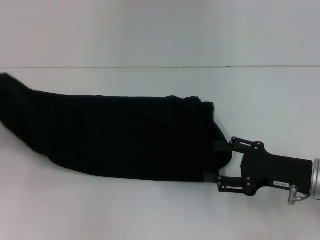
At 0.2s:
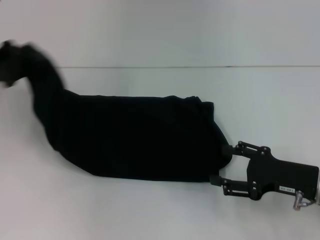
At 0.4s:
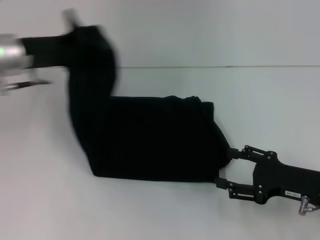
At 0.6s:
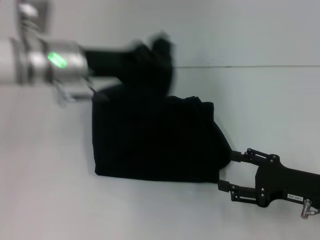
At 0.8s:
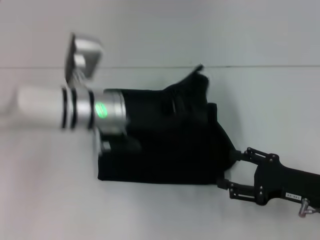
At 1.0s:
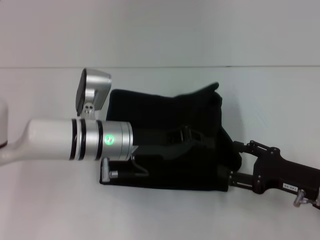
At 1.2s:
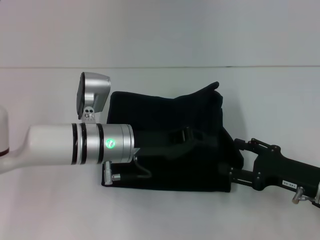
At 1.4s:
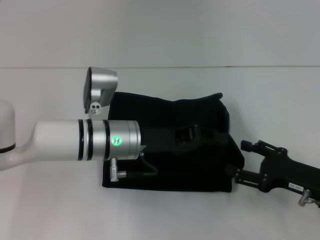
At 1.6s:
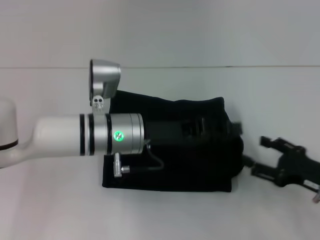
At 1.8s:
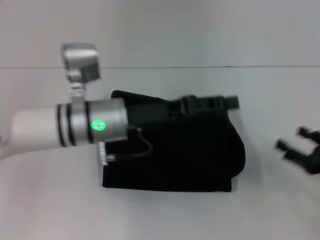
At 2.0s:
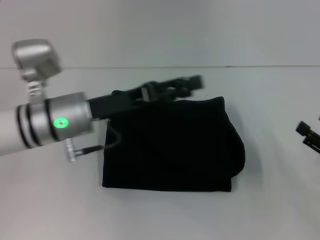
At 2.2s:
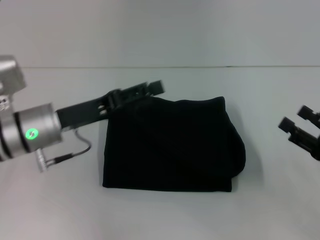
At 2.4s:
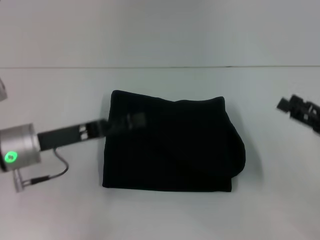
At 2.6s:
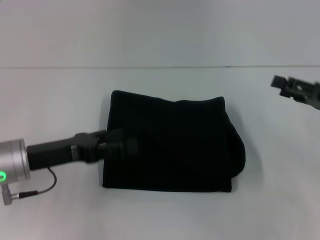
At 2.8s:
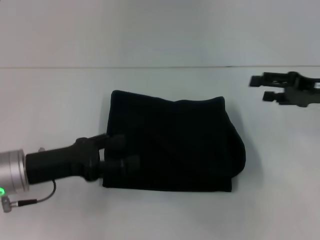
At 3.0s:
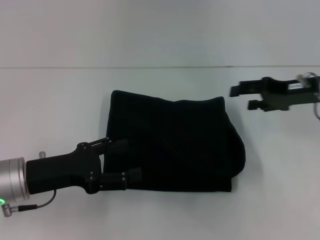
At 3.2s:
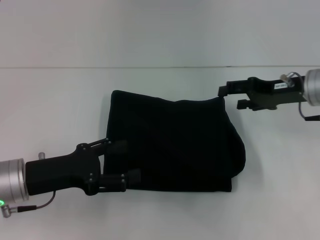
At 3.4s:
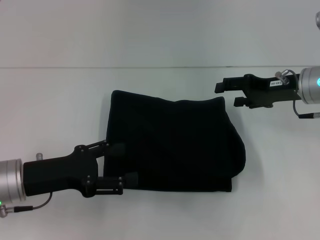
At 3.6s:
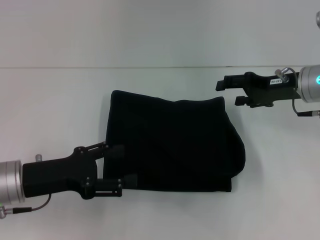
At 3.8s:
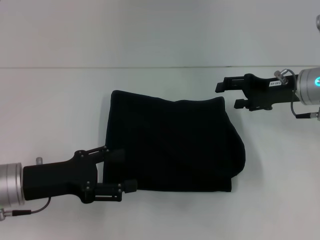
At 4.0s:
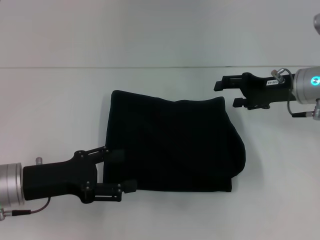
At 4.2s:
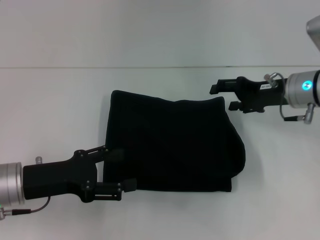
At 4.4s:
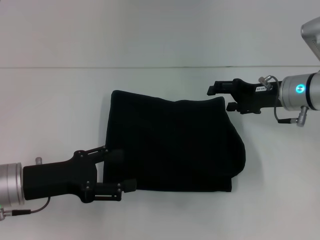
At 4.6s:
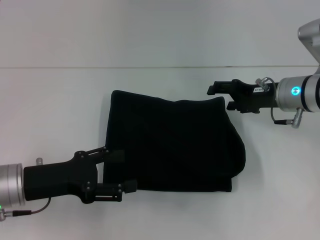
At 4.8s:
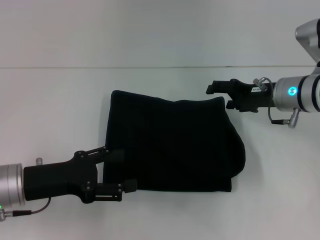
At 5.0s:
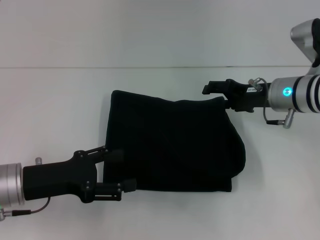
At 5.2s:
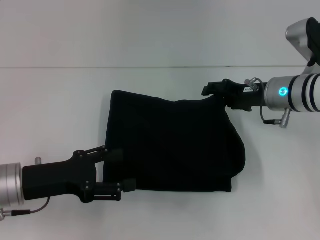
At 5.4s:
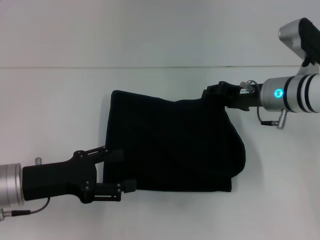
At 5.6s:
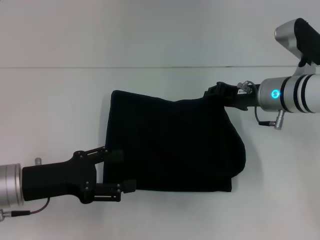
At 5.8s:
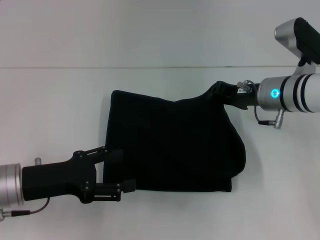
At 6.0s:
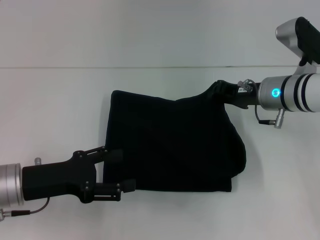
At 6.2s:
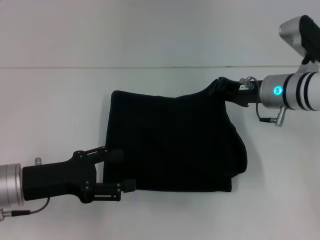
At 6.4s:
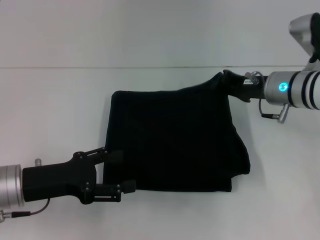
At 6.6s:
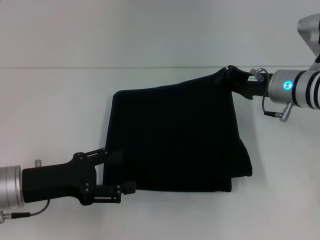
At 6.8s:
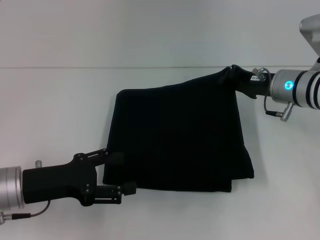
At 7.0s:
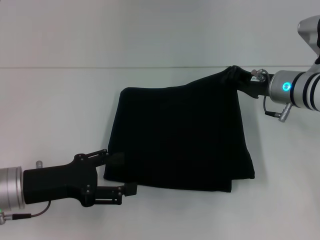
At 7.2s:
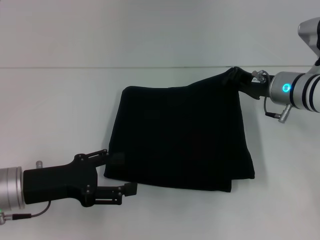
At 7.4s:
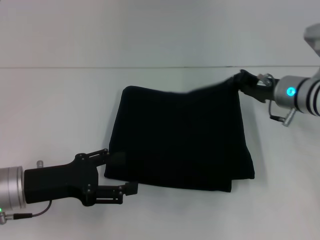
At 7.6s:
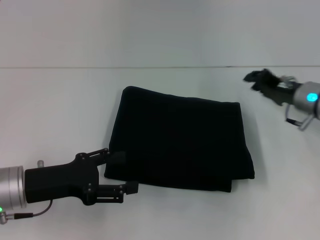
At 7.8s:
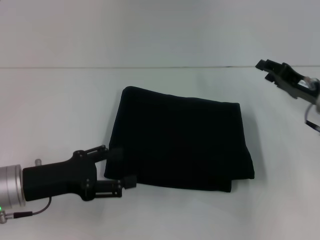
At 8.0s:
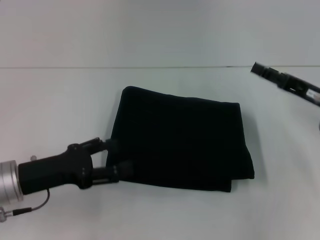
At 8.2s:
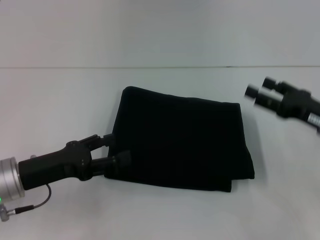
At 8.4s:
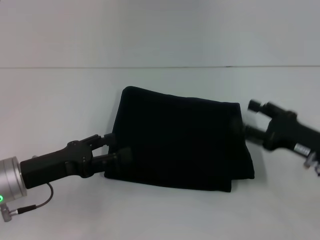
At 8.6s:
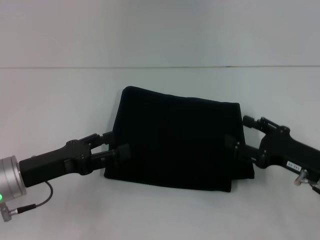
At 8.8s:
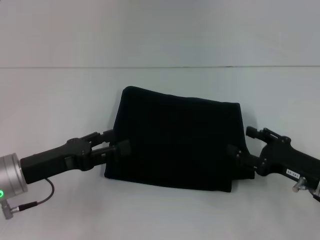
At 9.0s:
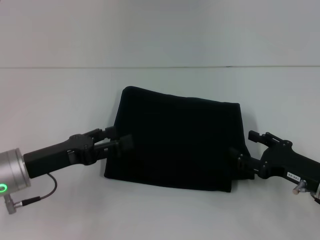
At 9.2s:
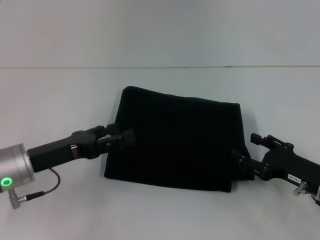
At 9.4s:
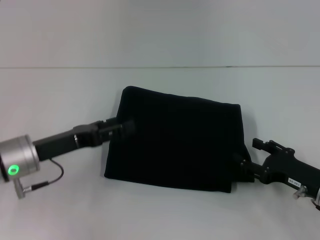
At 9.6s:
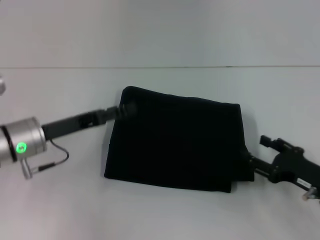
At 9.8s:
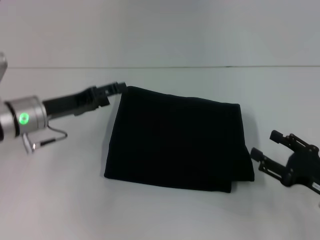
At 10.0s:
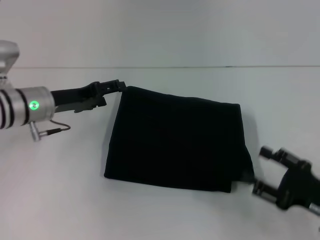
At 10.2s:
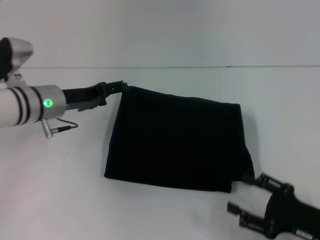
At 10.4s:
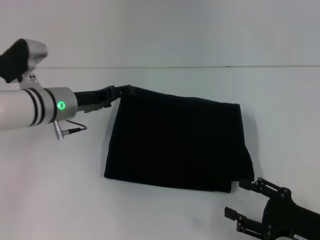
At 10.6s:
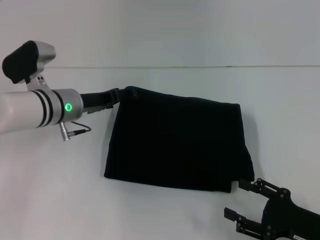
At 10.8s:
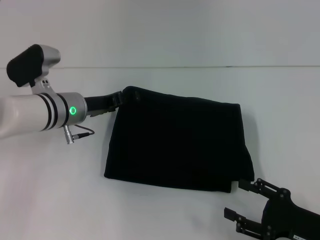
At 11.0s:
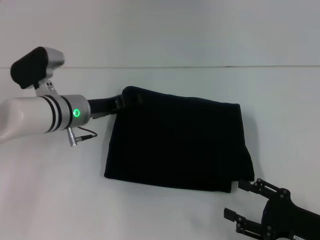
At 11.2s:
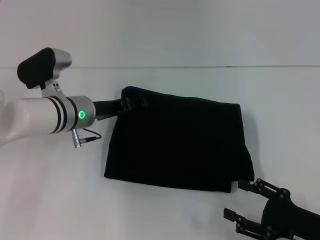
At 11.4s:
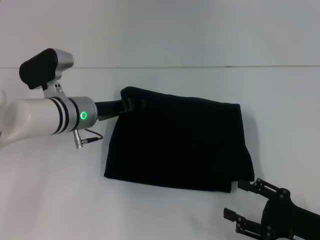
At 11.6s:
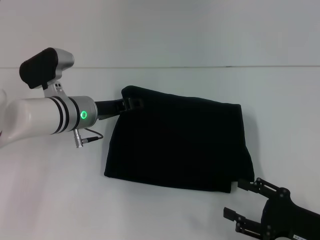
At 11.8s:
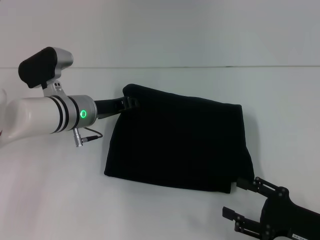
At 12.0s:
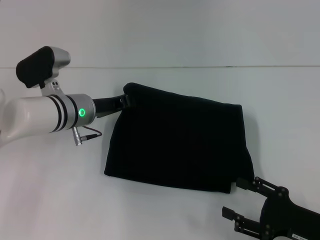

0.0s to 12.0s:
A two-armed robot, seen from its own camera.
0.0s to 1.6s: The left gripper shifts some 30 cm to the right, while the right gripper moves about 5 cm.
1.6s to 3.0s: The right gripper shifts some 20 cm forward and upward. Meanwhile the left gripper is displaced to the left and backward by roughly 15 cm, and opens up.
3.0s to 4.4s: The right gripper changes place by approximately 5 cm.
4.4s to 6.0s: The right gripper closes.
6.0s to 7.6s: The right gripper goes approximately 5 cm to the right.
7.6s to 9.0s: The right gripper moves backward and downward, approximately 15 cm, and opens its fingers.
9.0s to 10.4s: The right gripper goes roughly 10 cm backward, while the left gripper shifts some 15 cm forward.
10.4s to 12.0s: The left gripper closes its fingers.

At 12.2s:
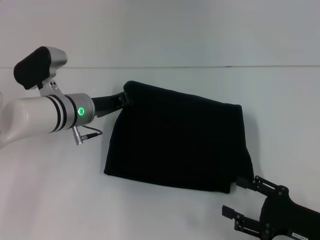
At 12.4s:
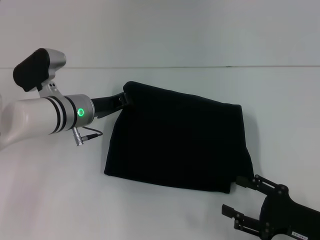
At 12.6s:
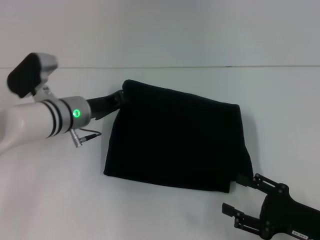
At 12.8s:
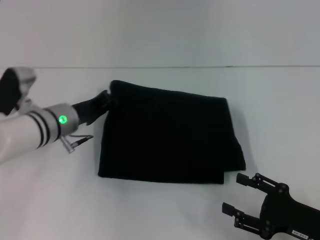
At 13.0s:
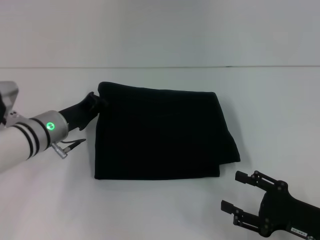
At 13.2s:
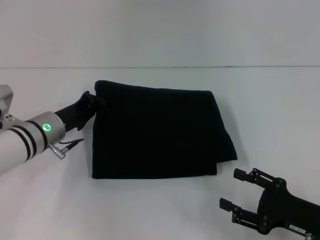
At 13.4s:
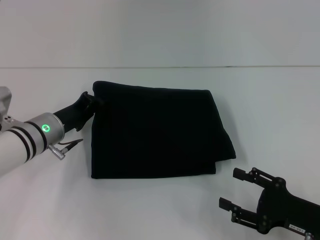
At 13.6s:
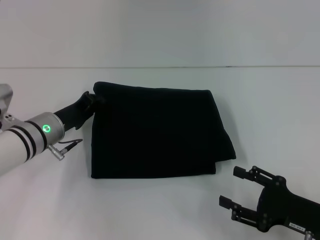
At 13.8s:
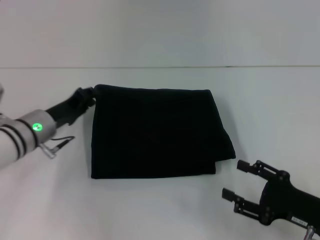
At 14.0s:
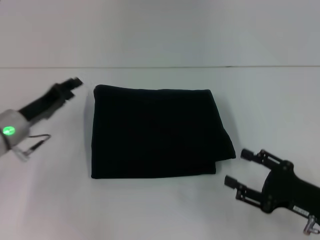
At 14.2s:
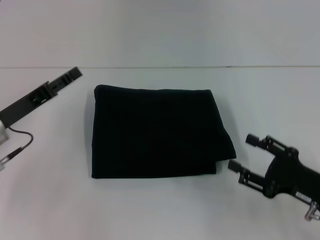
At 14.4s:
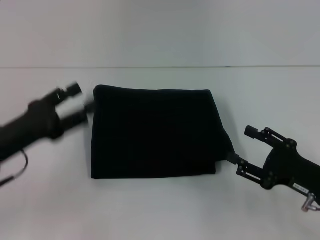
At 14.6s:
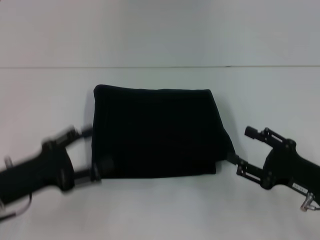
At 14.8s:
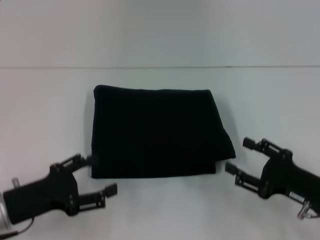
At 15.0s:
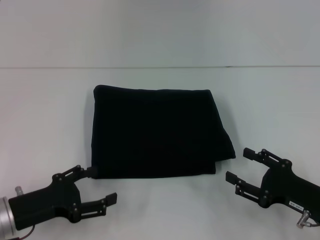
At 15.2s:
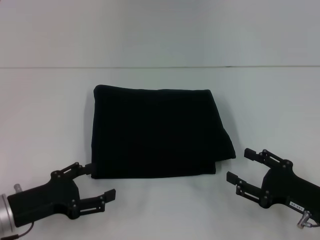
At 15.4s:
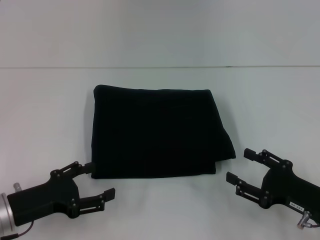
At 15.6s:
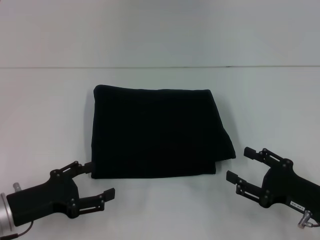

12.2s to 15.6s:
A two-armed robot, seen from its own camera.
12.2s to 13.8s: The left gripper is displaced to the left by approximately 5 cm.
13.8s to 15.6s: The left gripper travels backward by about 15 cm, and opens.

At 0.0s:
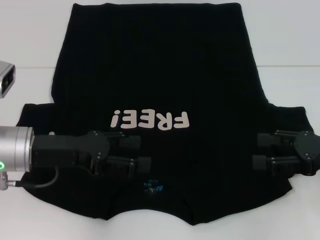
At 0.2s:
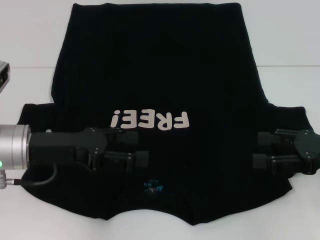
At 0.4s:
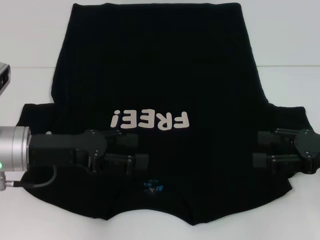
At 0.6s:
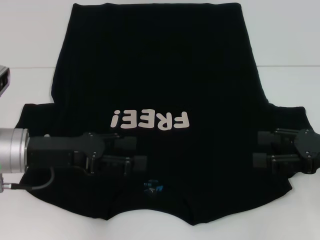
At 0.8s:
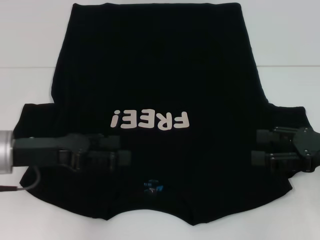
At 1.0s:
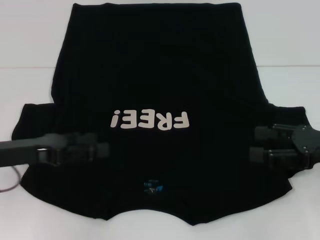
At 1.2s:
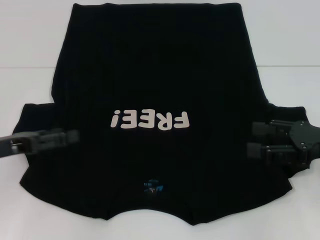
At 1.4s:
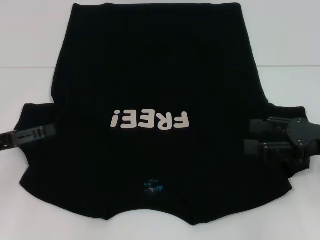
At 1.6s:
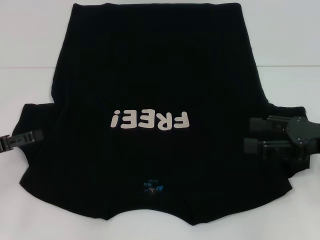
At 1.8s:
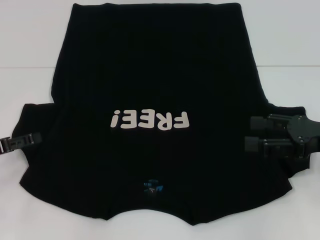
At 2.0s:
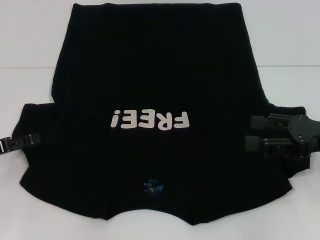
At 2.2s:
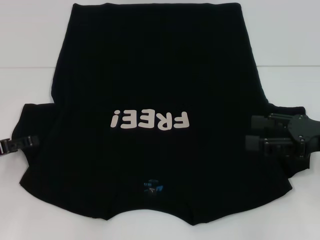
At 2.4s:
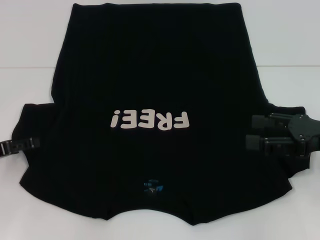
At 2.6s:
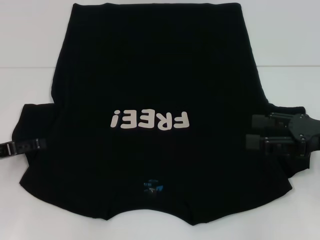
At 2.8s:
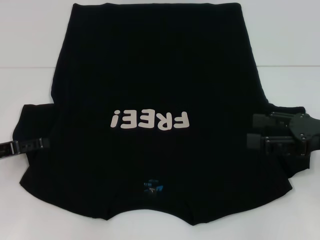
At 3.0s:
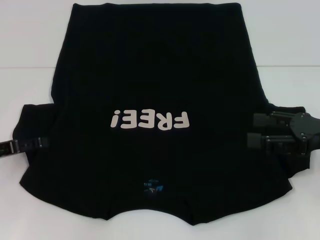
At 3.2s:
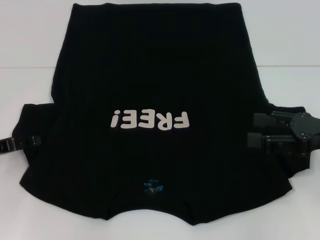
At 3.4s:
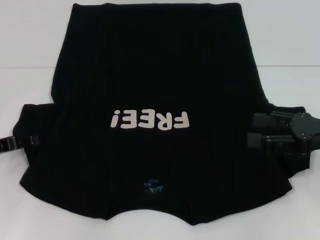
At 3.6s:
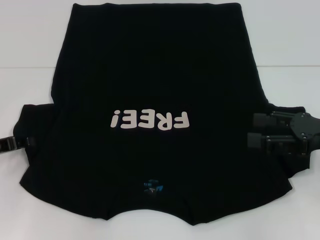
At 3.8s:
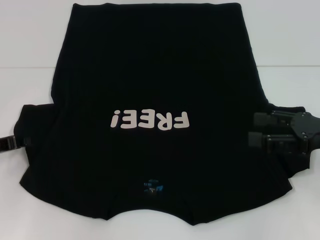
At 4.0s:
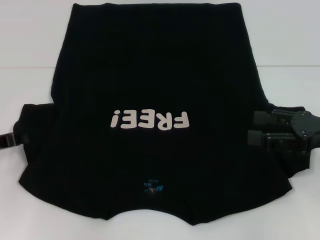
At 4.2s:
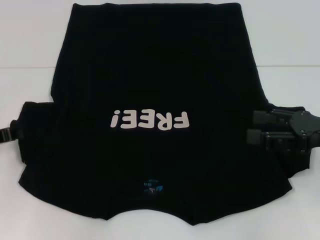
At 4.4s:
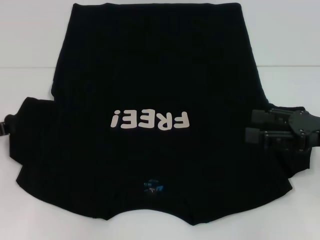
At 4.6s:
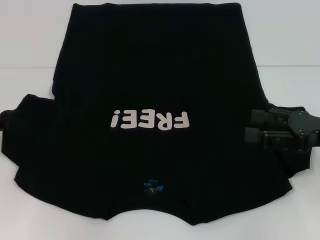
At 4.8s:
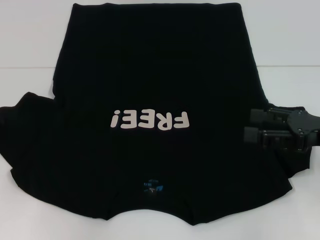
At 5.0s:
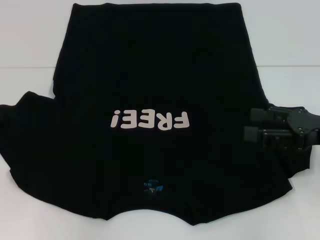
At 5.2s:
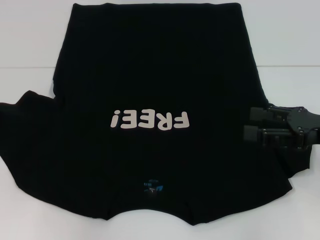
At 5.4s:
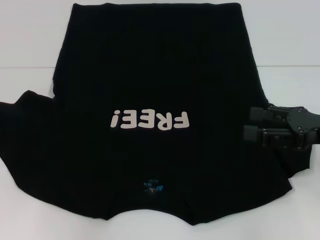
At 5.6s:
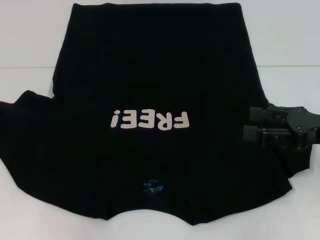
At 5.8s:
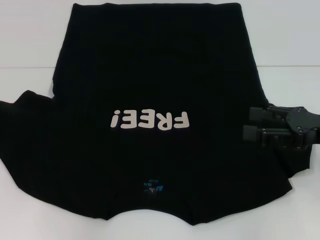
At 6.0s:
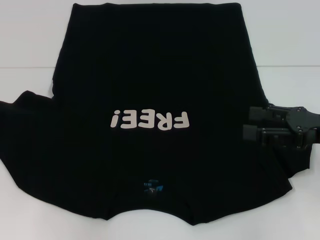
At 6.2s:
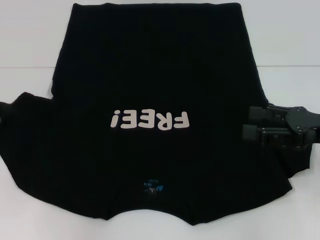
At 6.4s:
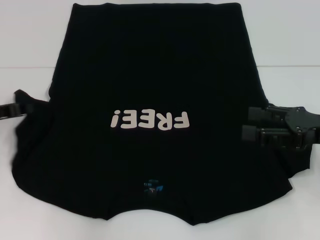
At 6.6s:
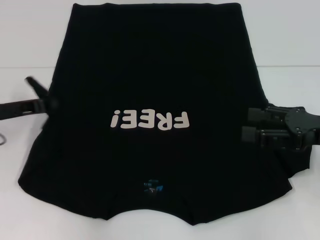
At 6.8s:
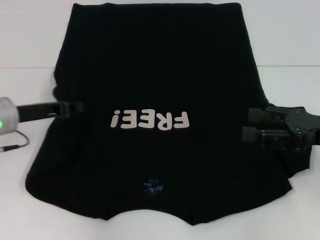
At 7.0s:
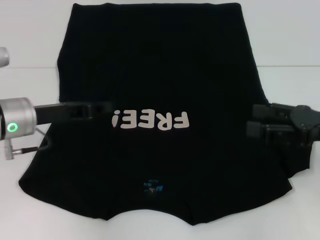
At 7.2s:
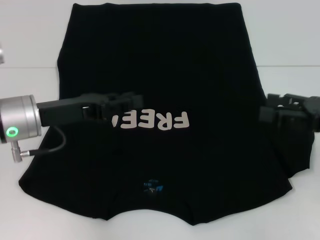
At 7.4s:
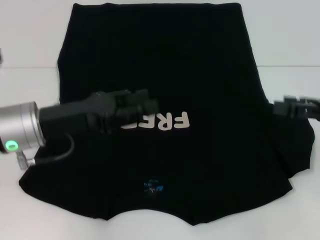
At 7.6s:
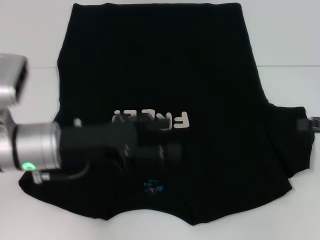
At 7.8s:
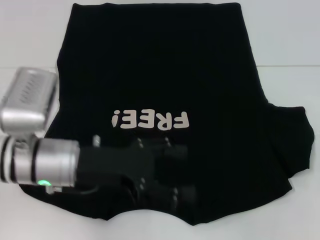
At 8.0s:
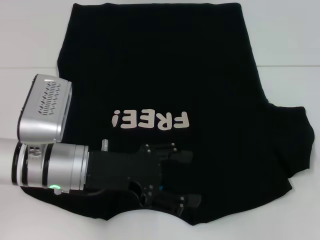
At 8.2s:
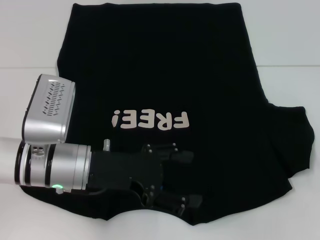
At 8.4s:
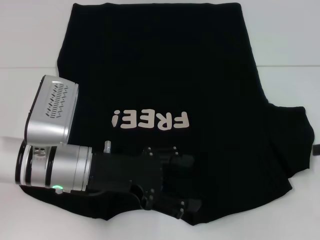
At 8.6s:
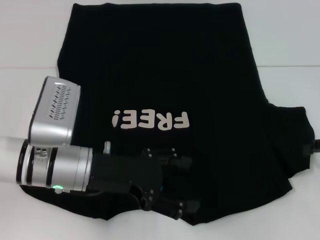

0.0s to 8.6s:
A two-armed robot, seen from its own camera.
Step, 0.0s to 7.0s: Fold the bottom left sleeve with your left hand.
0.0s to 1.4s: The left gripper moves to the left, about 10 cm.
1.4s to 2.8s: The grippers move only a little.
2.8s to 4.4s: The left gripper closes.
4.4s to 5.8s: The grippers stay close to where they were, moving slightly.
5.8s to 7.2s: The left gripper moves to the right, approximately 15 cm.
7.2s to 8.6s: Both grippers move to the right, about 5 cm. The left gripper opens its fingers.
